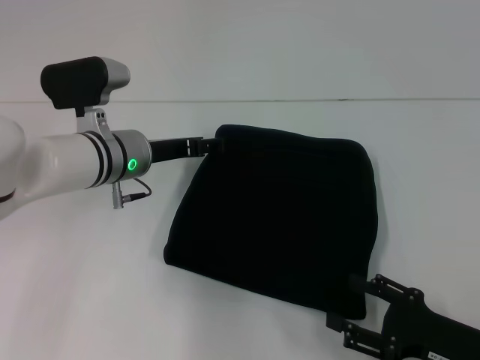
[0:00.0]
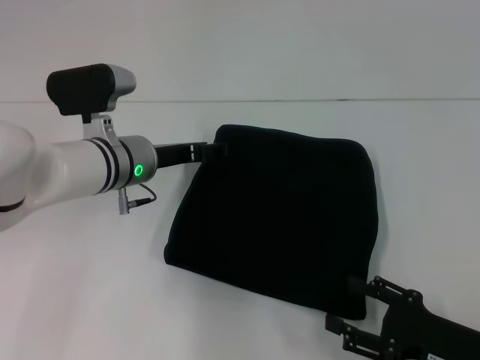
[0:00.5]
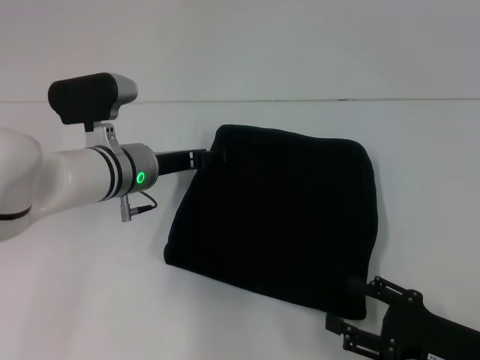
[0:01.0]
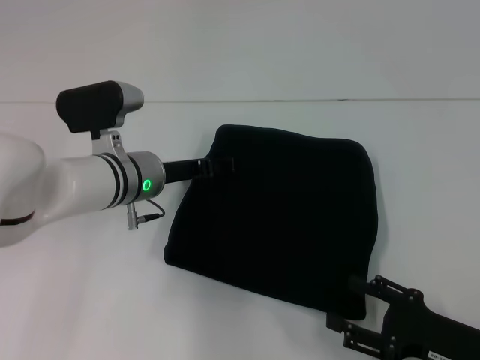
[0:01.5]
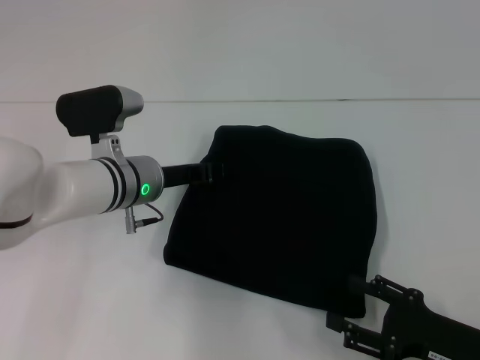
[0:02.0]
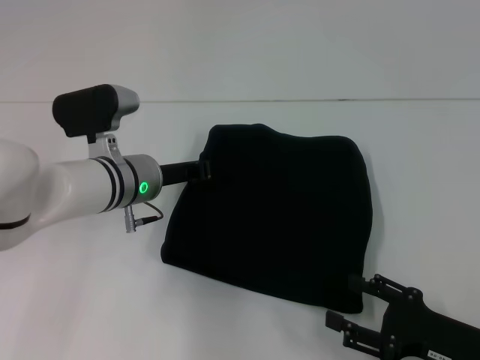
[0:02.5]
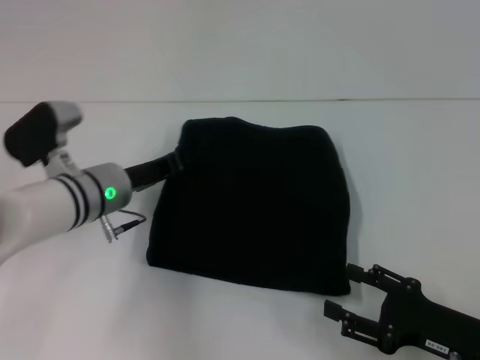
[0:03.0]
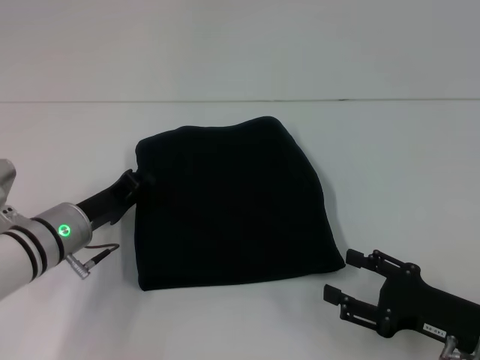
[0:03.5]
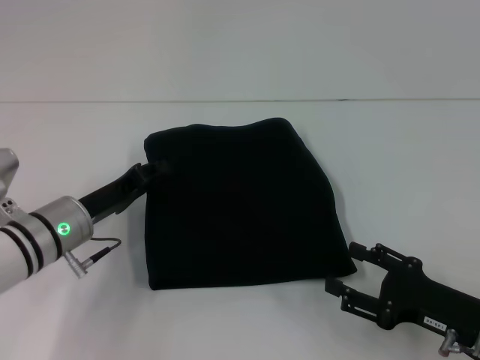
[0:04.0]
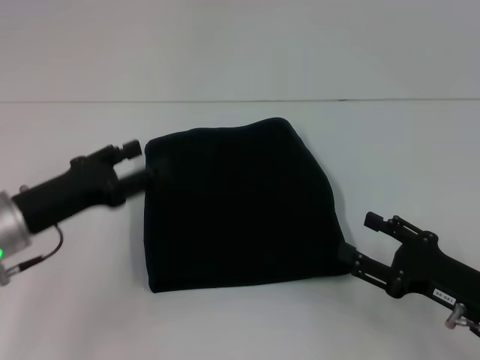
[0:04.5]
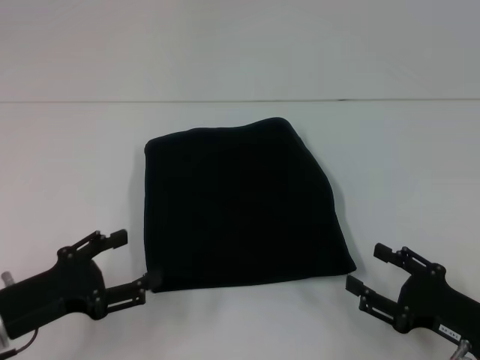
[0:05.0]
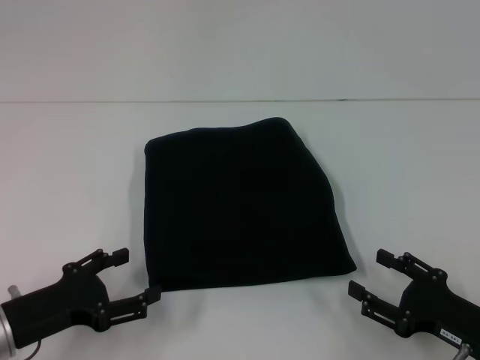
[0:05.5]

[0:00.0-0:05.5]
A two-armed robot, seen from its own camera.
0:00.0 to 0:02.0: The grippers move only a little.
0:02.0 to 0:03.5: The left gripper shifts roughly 10 cm to the left and backward, and closes.
0:03.5 to 0:05.5: The left gripper shifts about 10 cm backward and to the left, and opens up.
